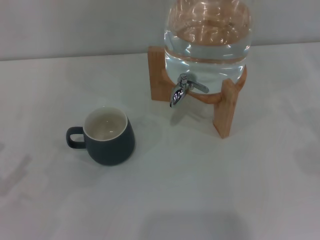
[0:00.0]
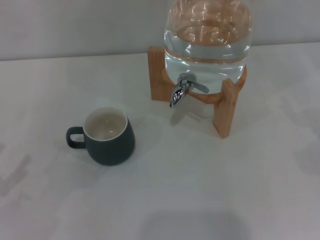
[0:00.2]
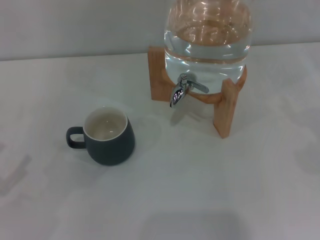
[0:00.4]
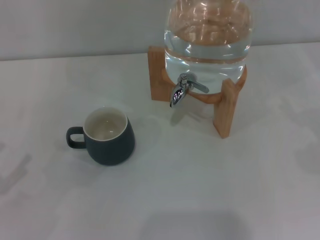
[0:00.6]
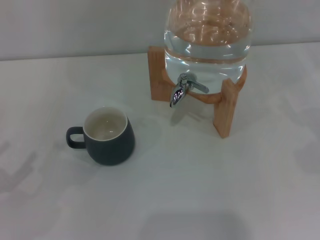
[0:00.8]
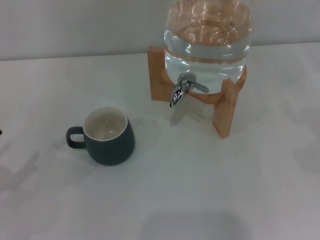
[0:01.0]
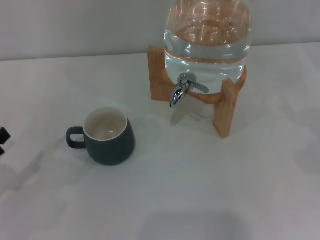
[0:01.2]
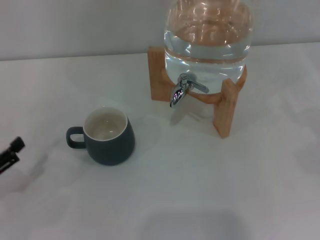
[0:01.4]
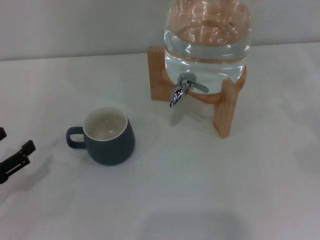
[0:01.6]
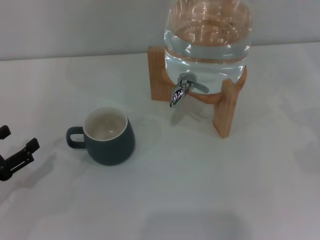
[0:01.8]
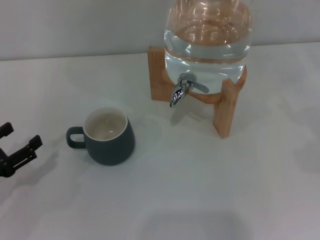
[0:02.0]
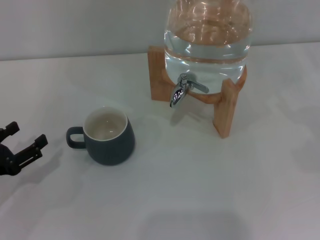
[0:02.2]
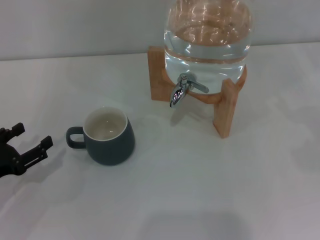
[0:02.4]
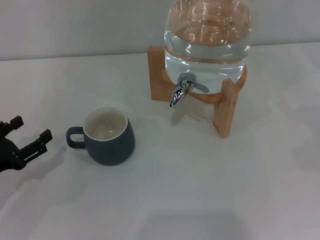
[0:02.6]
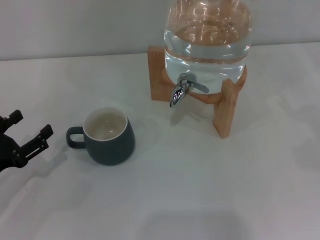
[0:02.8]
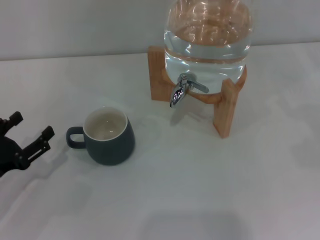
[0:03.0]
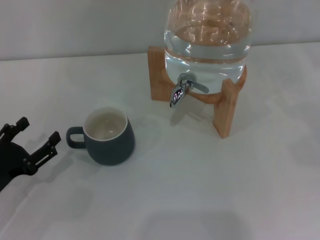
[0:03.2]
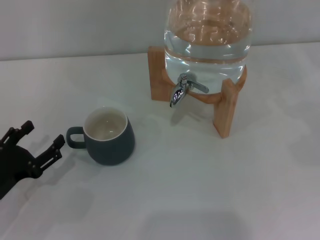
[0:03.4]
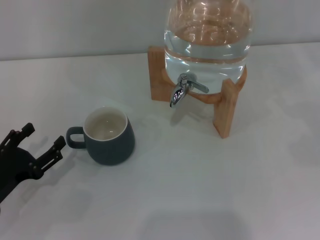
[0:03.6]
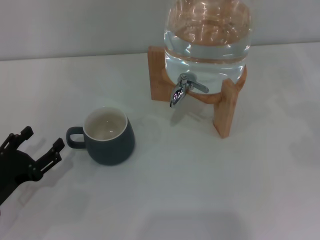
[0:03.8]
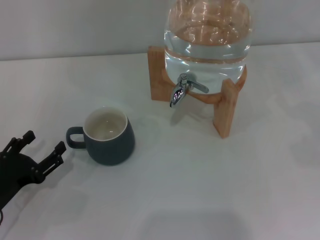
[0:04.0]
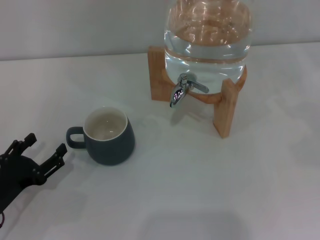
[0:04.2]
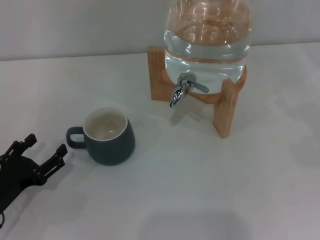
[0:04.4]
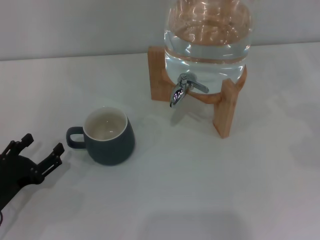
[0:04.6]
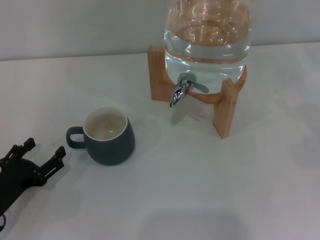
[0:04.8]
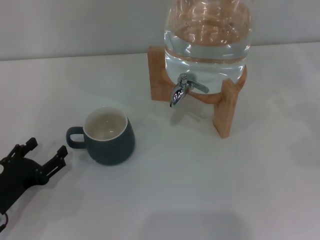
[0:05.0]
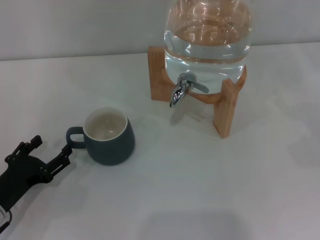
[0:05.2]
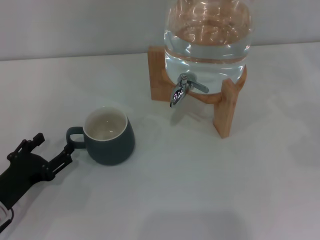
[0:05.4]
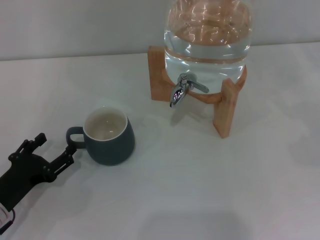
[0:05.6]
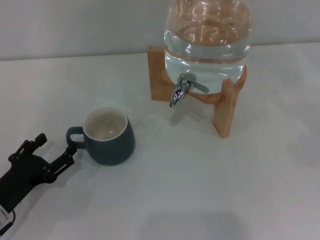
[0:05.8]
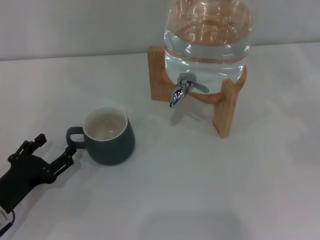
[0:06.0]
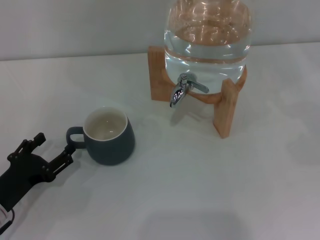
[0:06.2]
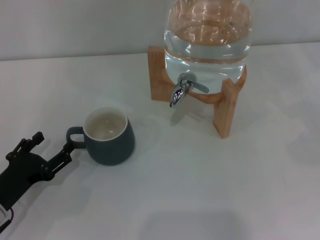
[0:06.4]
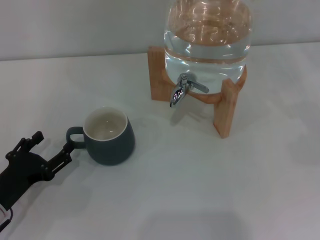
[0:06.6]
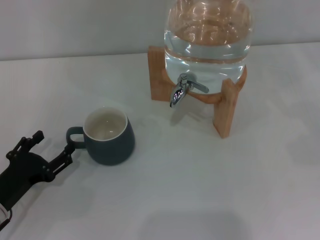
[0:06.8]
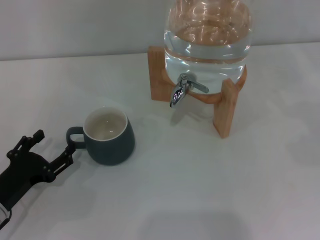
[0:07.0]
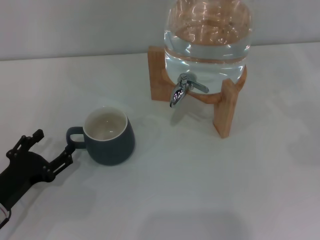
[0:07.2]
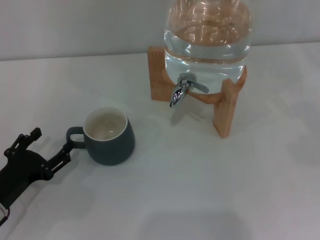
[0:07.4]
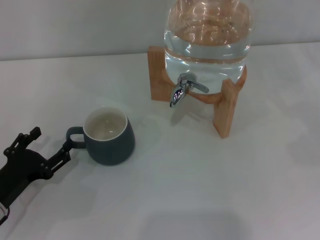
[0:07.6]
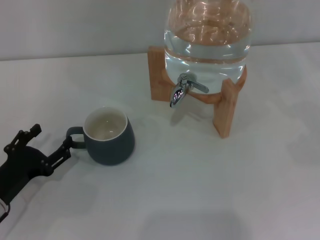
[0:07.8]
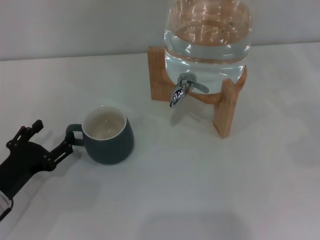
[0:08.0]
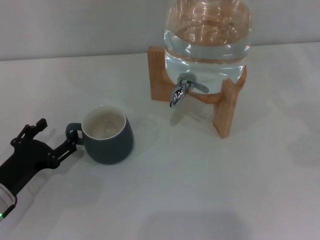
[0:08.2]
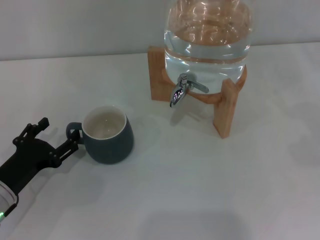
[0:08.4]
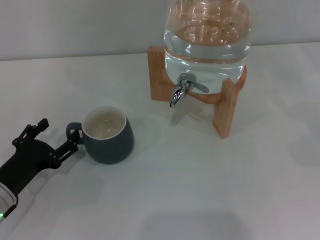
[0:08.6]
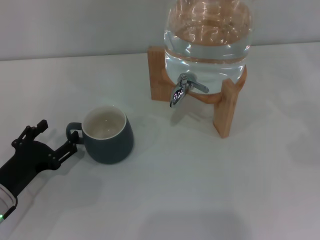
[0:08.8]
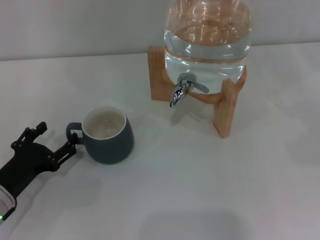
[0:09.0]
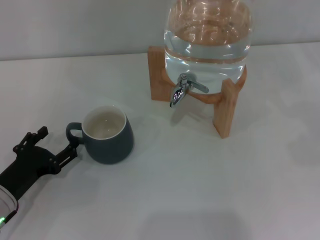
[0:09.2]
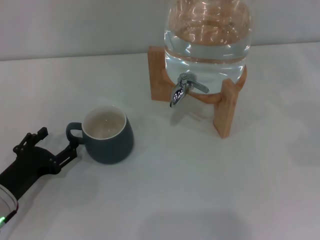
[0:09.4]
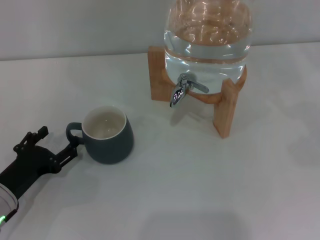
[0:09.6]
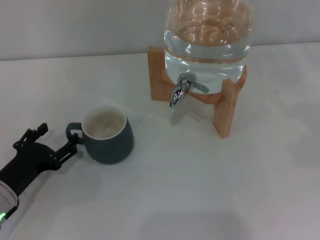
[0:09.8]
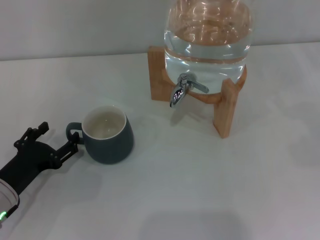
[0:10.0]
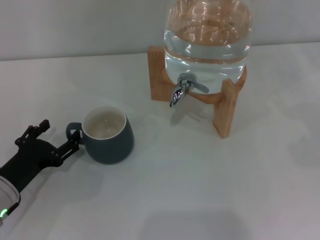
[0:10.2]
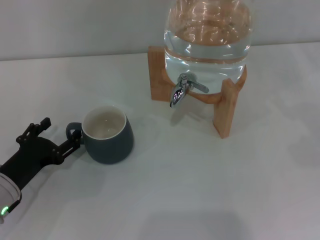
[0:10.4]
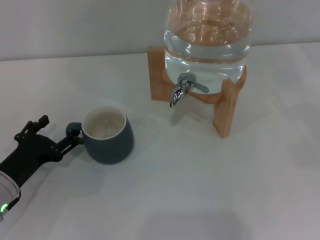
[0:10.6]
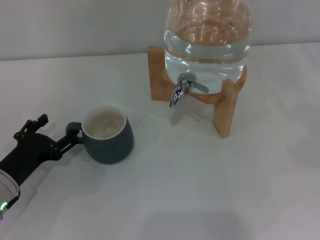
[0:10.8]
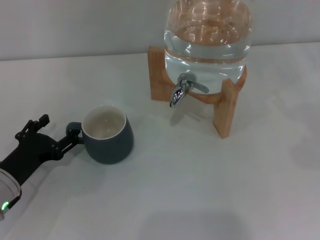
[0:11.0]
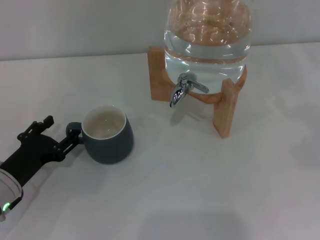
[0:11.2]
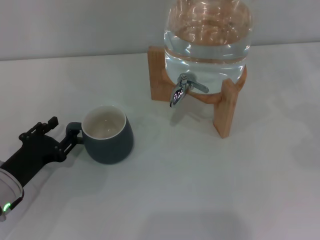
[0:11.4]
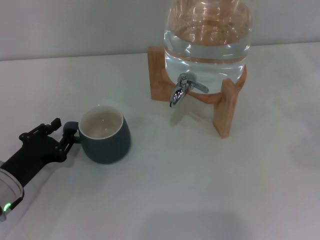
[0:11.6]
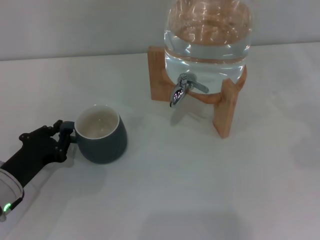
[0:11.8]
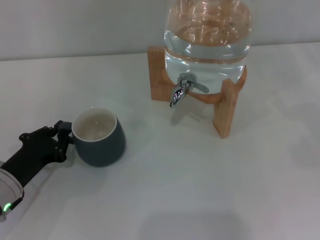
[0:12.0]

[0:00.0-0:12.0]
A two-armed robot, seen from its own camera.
Task of the whole recording: the left gripper pick up the black cup and place it horizontally under the faucet, the right gripper turn on the faucet to fill the cup, and then turn off the faucet.
0:00.0 to 0:01.6: The left gripper changes place by about 5 cm.
0:01.6 to 0:03.0: The grippers stay close to where they were, moving slightly.
0:03.0 to 0:09.0: The grippers stay close to where they were, moving slightly.
0:09.0 to 0:10.4: Both grippers stay put.
0:10.4 to 0:12.0: The left gripper closes its fingers.

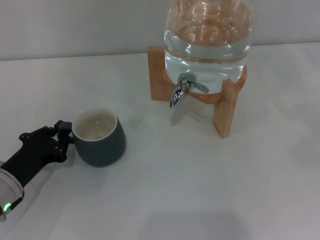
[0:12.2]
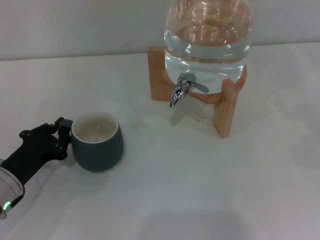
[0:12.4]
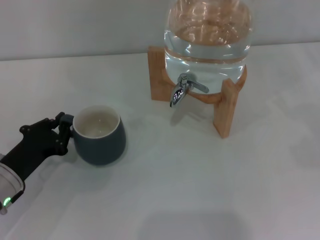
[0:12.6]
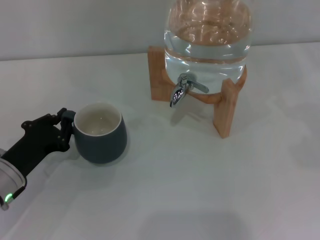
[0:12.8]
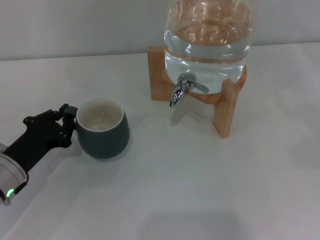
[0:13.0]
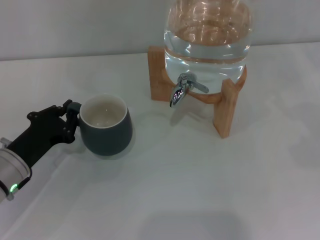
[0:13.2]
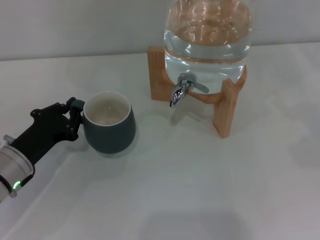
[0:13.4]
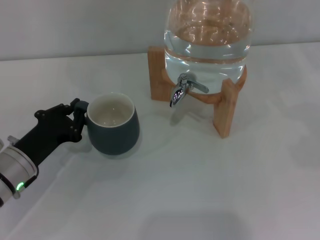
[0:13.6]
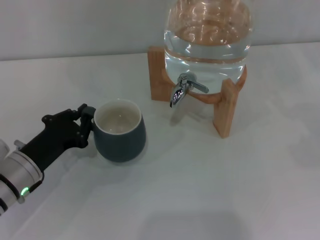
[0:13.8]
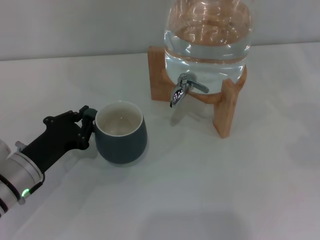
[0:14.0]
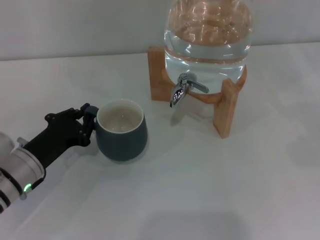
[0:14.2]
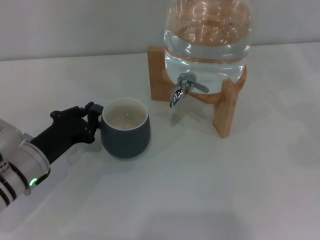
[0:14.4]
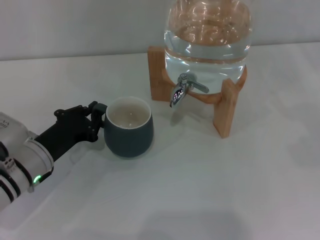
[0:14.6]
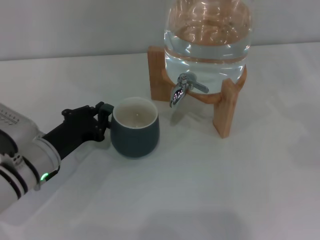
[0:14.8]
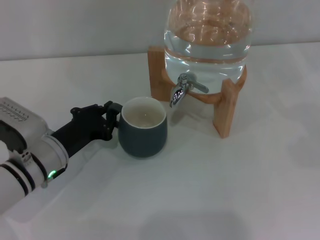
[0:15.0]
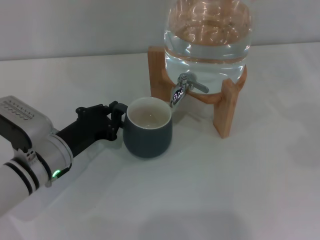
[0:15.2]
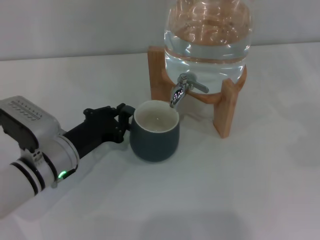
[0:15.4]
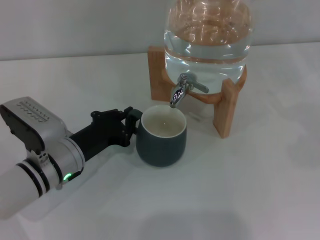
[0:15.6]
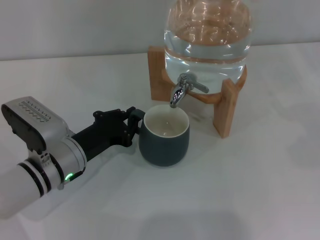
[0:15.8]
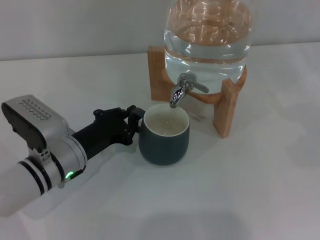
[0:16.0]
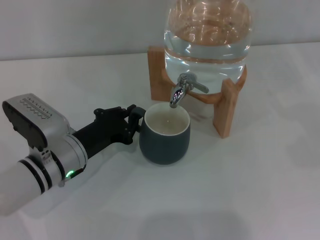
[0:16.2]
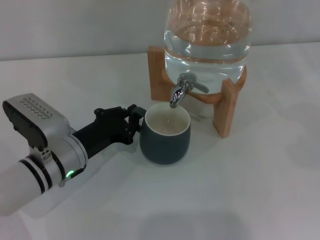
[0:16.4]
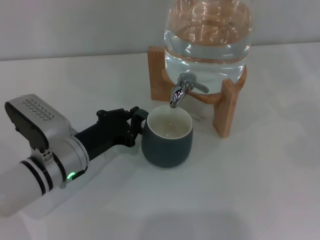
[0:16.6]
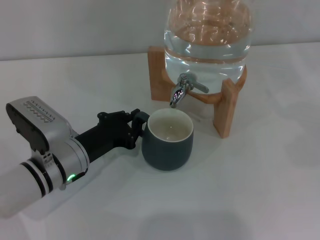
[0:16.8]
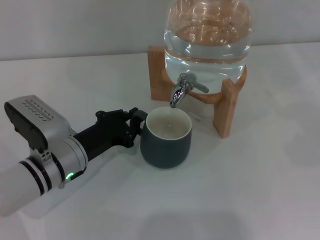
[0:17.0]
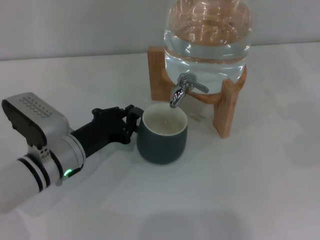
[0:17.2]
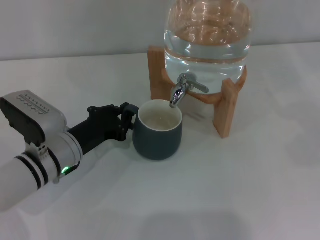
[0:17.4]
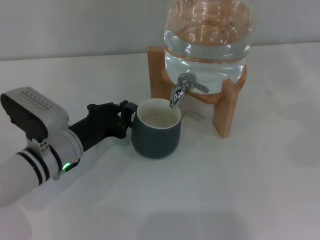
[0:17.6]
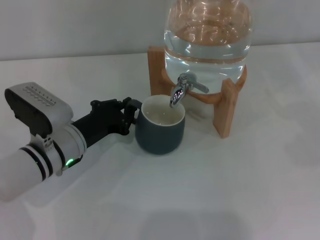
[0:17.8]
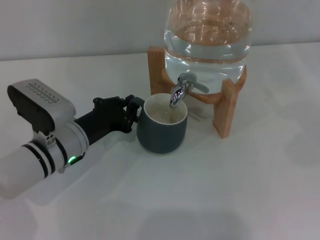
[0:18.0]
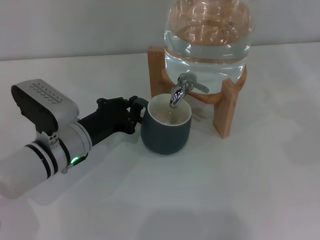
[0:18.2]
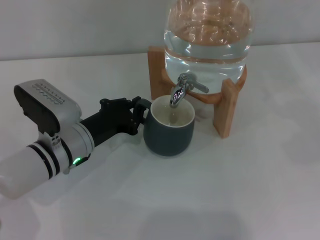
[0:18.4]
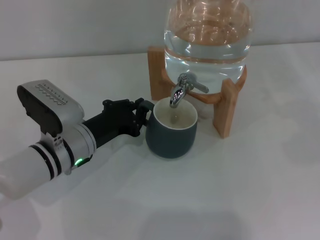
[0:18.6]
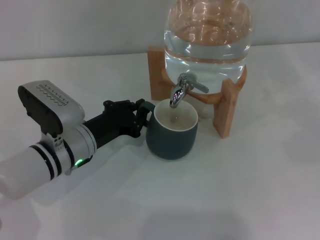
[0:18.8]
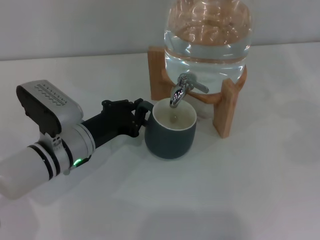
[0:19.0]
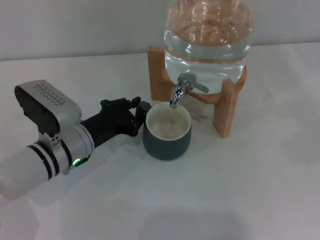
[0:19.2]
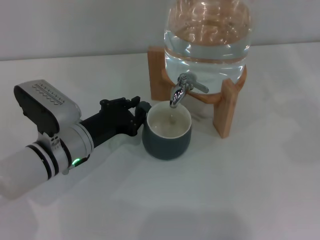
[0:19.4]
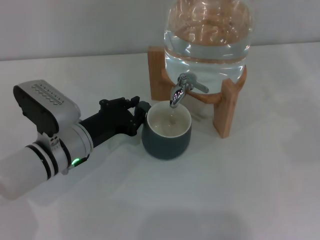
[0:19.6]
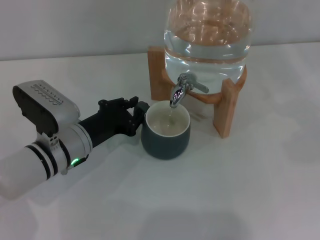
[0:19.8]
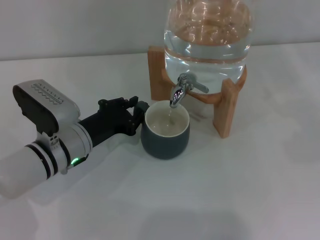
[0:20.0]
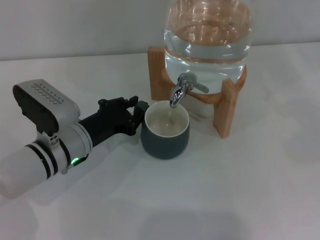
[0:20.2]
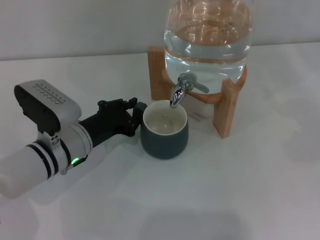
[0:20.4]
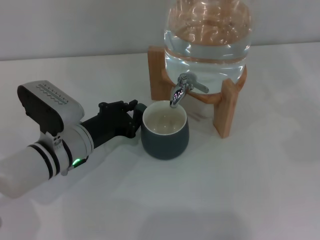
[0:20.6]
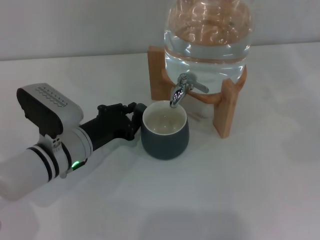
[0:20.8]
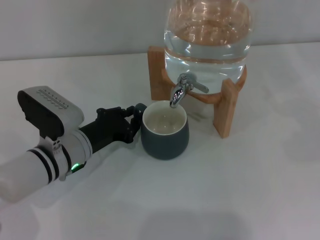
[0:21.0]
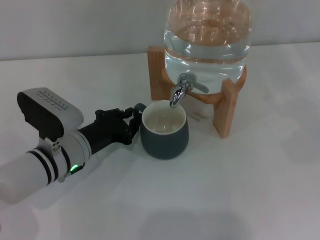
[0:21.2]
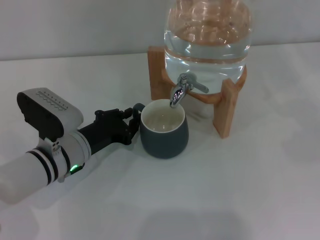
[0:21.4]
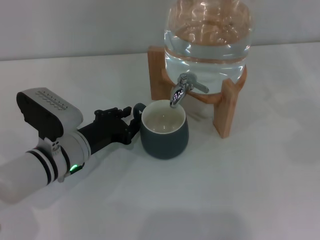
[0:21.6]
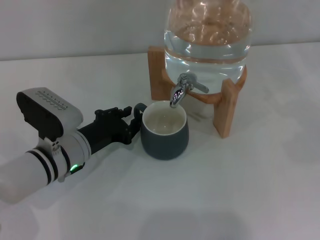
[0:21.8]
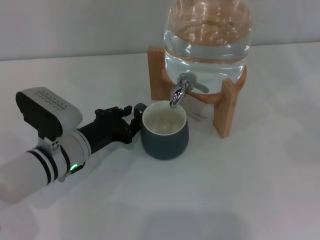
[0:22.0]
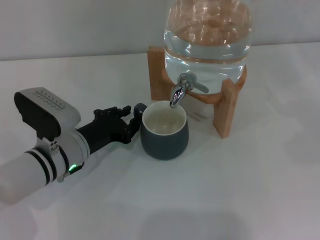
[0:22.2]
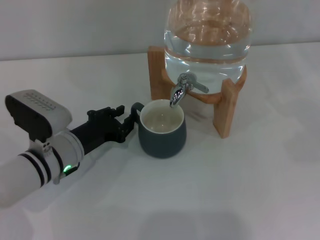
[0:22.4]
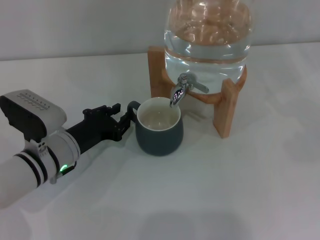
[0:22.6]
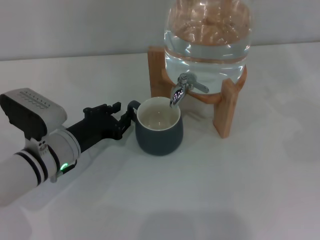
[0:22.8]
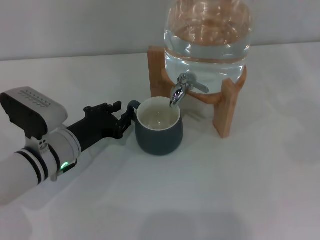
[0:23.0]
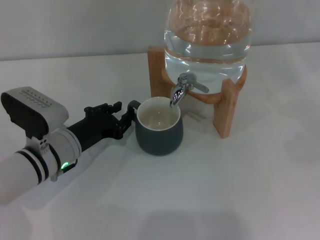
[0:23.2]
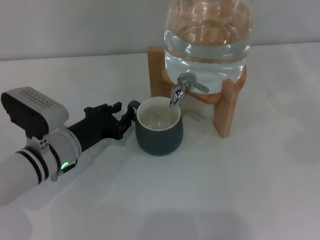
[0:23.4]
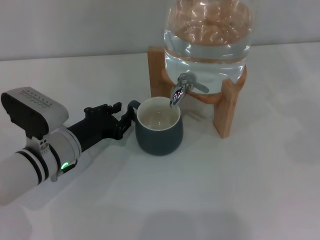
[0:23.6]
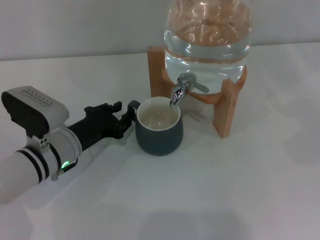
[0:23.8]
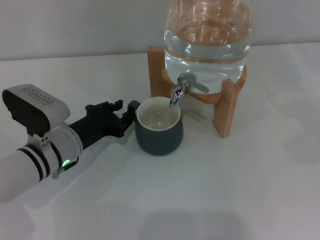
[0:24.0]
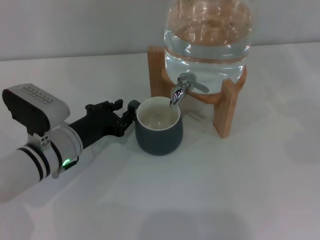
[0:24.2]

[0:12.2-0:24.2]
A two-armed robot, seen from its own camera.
Task of the whole recording: the left gripper pick up the black cup and place it horizontally under the faucet, the right gripper turn on the faucet to fill the cup, and then turn off the faucet.
0:12.2 to 0:13.8: The grippers stay close to where they were, moving slightly.
0:13.8 to 0:15.2: The left gripper ends up roughly 5 cm from where it was.
0:15.2 to 0:18.2: The grippers move only a little.
0:18.2 to 0:19.8: The two grippers keep their place.
0:19.8 to 0:22.6: The grippers move only a little.
0:22.6 to 0:24.2: The two grippers keep their place.
